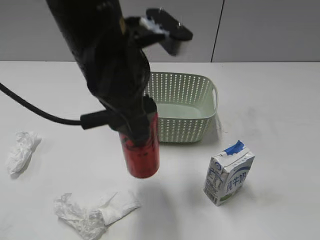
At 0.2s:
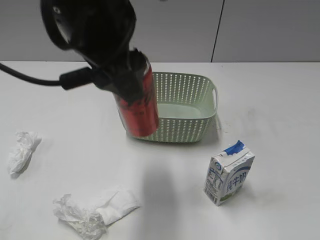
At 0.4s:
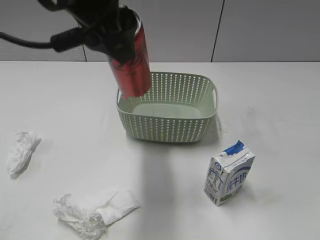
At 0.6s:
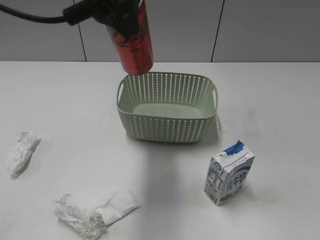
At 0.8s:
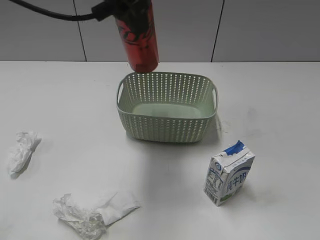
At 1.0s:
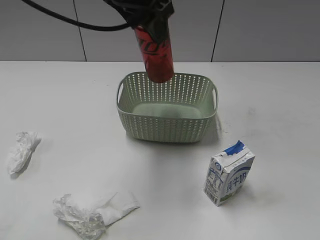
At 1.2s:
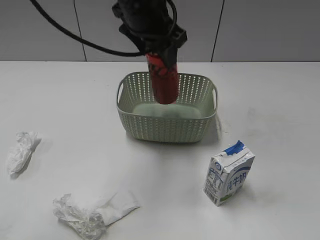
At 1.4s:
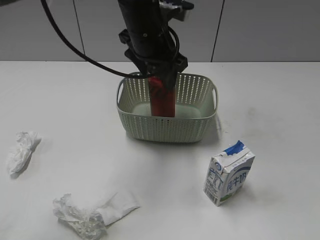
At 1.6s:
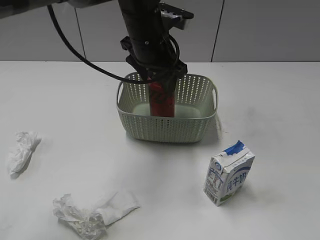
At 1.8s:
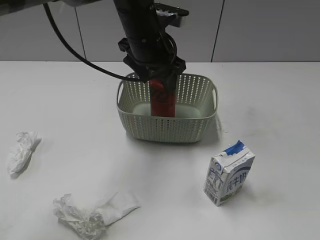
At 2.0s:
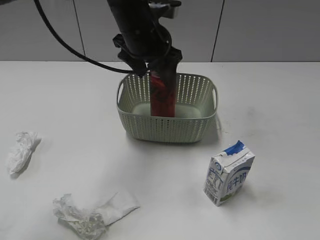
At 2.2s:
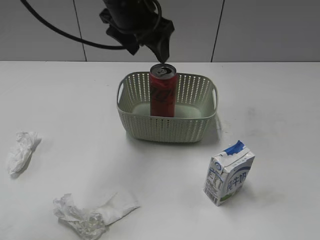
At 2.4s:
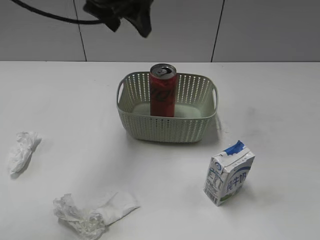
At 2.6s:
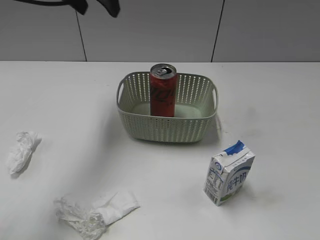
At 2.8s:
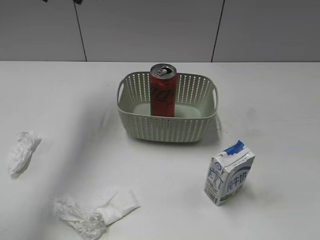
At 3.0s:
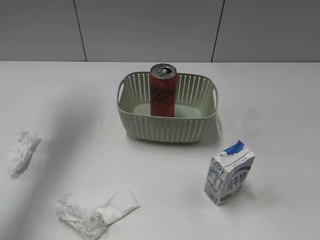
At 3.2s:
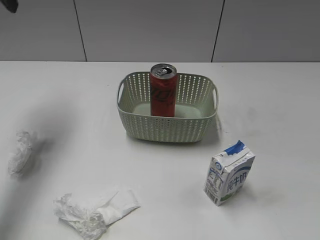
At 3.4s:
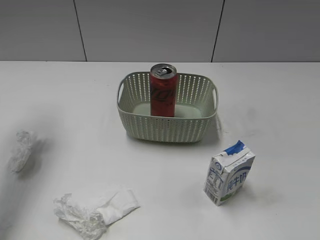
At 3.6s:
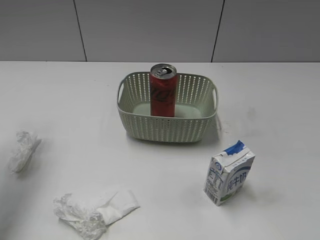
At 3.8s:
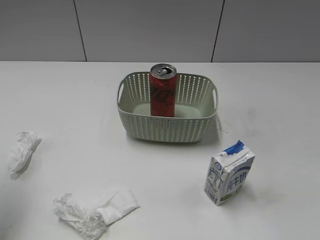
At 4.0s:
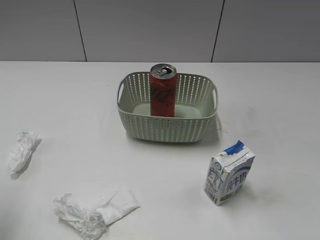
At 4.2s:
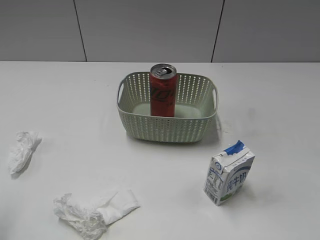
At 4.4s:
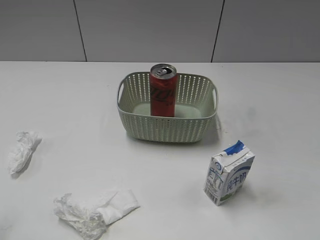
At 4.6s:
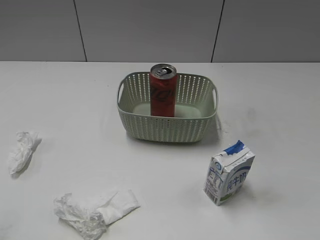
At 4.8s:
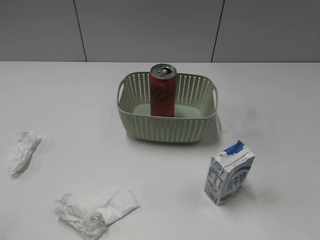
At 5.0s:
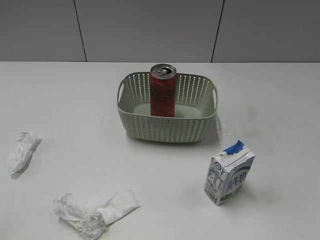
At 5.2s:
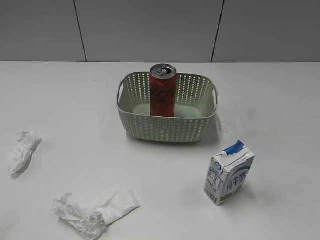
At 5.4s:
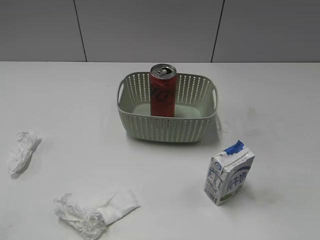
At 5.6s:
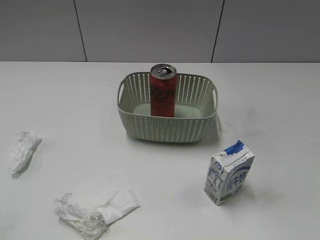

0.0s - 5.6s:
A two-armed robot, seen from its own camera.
Step, 0.0s - 2.2s: Place the cola can in the basket with left gripper.
0.0s - 1.4s: The left gripper moves forward, about 15 cm.
1.4s - 2.8s: The left gripper travels to the left and upward by some 20 cm, and opens up.
2.8s - 4.2s: The left gripper moves backward and to the left, approximately 30 cm.

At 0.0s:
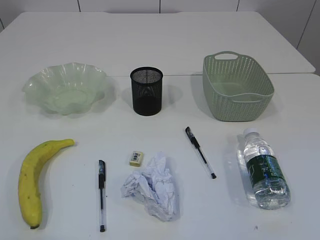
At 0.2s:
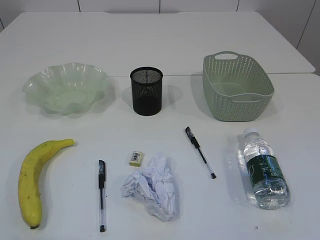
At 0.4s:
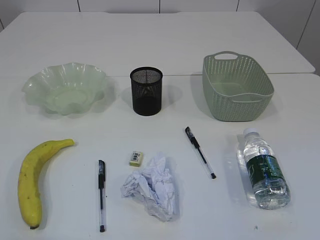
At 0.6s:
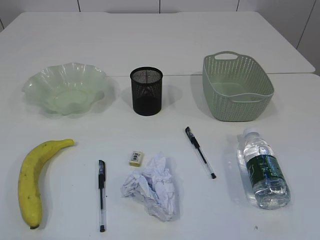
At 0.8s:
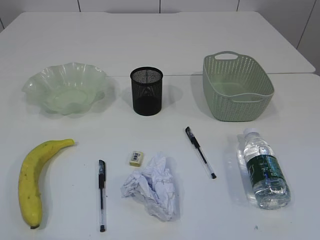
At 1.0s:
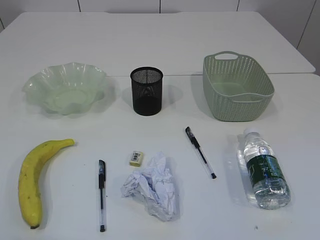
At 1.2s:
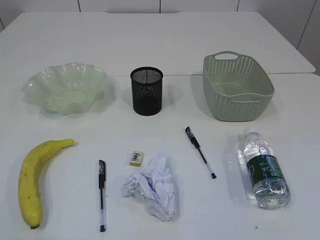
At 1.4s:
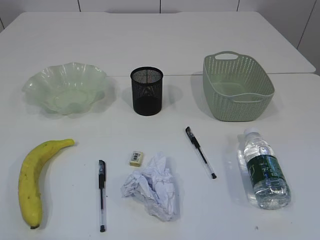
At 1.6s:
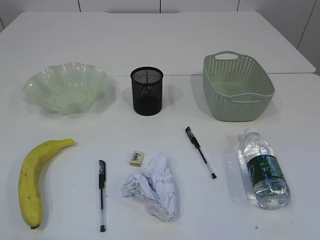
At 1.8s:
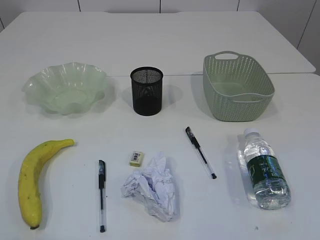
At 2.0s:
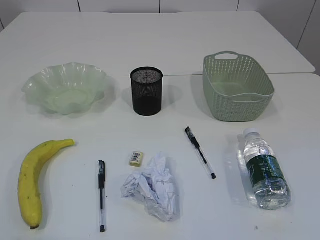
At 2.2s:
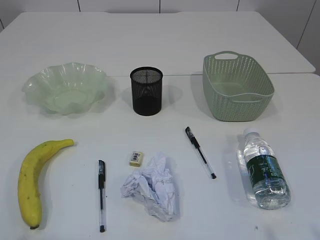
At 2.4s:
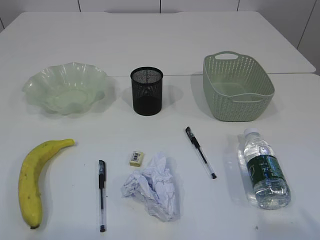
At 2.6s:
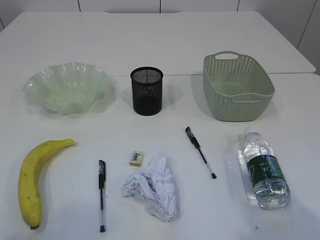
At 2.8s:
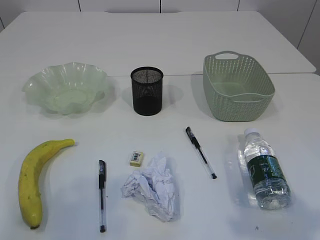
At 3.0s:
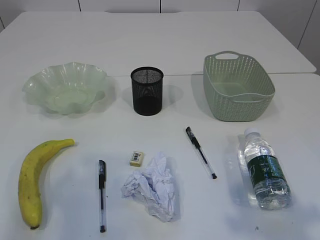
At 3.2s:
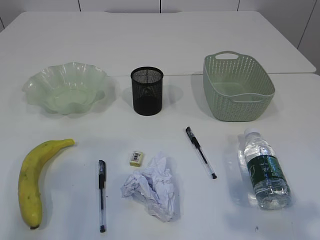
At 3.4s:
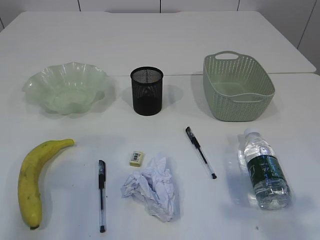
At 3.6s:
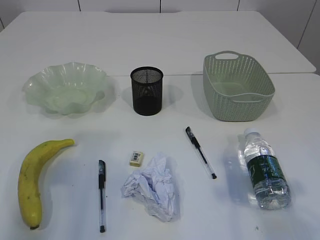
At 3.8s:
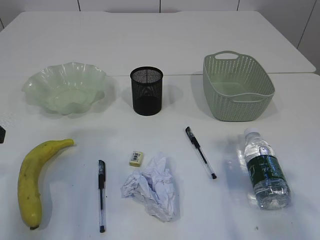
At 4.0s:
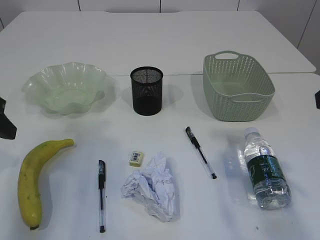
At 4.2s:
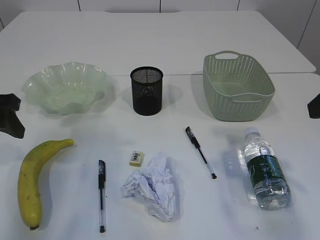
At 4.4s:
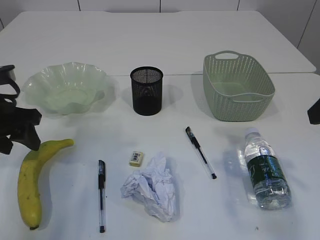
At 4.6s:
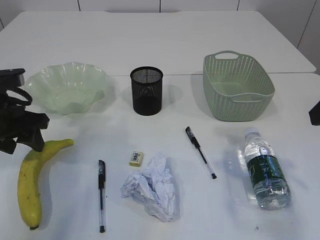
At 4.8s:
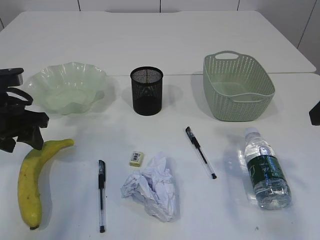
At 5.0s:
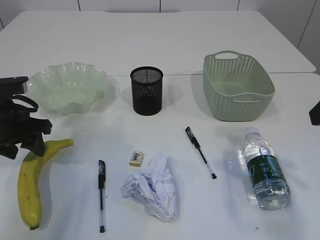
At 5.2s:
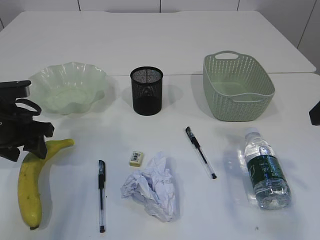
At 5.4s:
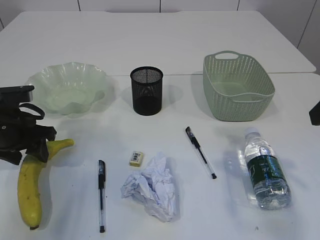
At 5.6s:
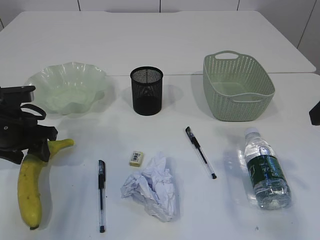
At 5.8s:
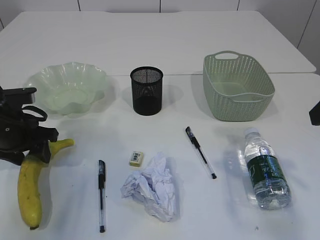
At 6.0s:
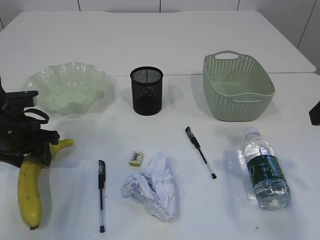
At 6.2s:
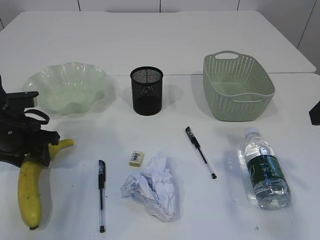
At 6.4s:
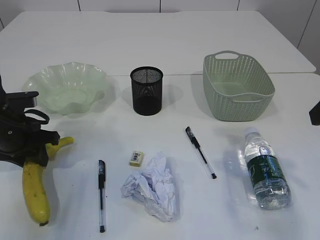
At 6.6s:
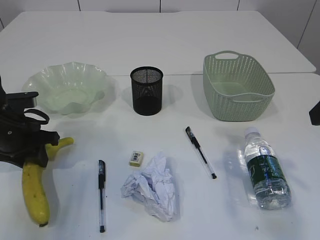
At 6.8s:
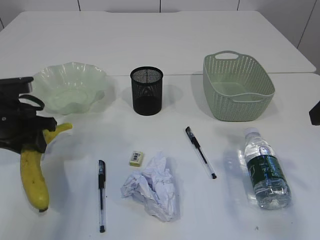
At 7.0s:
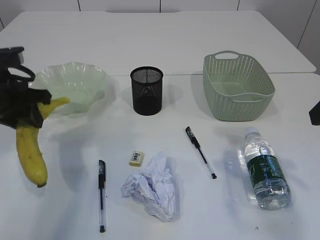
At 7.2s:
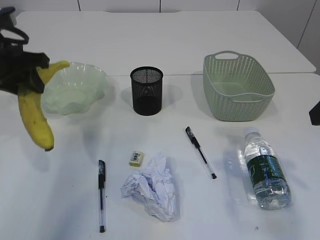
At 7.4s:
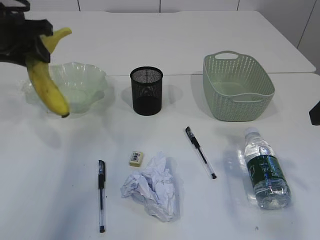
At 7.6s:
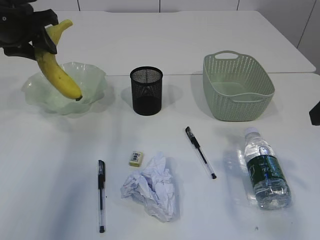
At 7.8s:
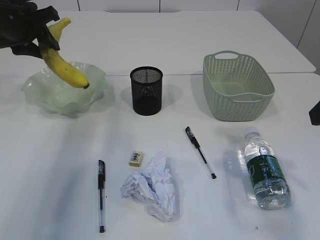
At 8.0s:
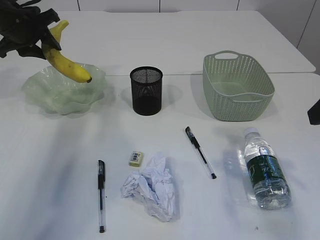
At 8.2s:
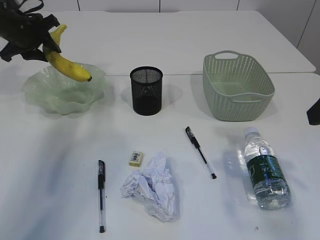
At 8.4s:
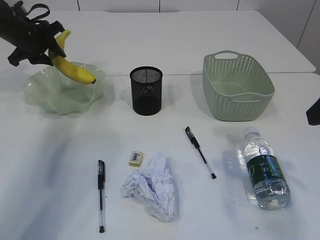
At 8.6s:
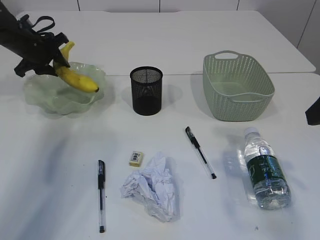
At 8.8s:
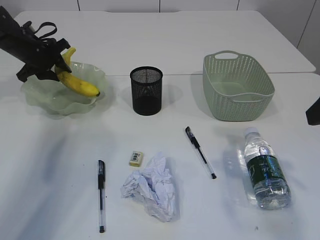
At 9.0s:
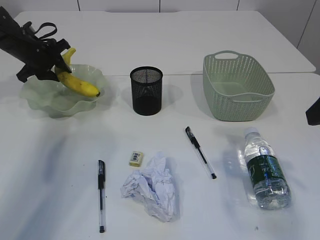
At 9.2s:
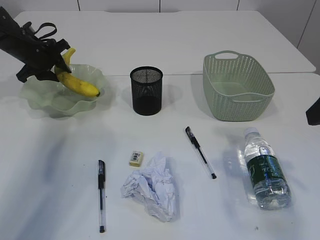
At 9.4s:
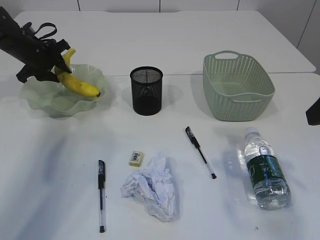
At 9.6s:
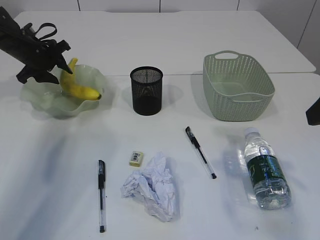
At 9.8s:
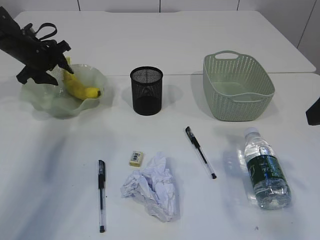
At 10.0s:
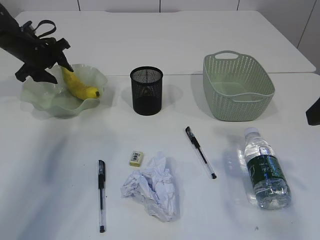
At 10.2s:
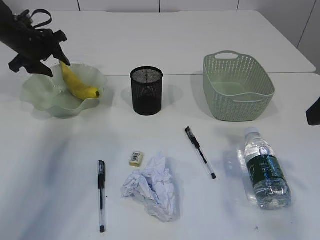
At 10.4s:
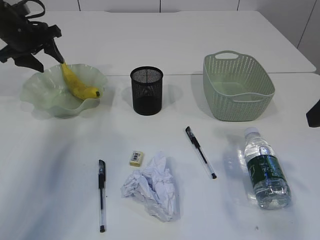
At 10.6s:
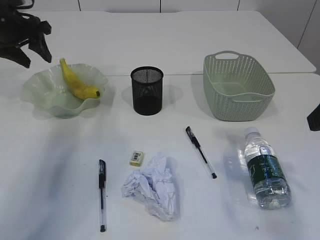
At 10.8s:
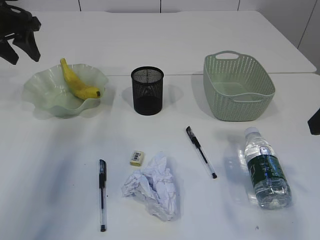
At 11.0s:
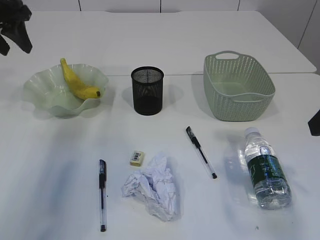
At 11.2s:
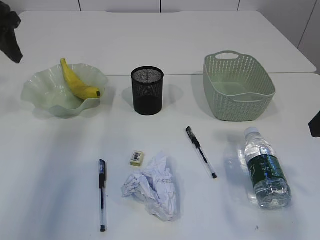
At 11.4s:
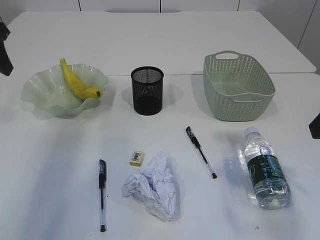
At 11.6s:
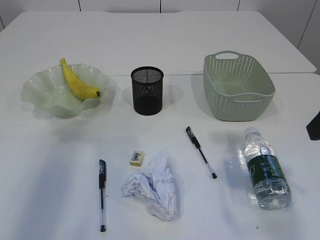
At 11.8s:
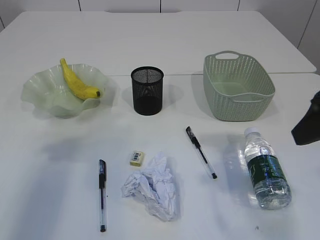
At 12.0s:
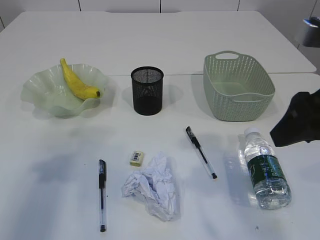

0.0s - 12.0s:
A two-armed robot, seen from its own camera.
Step, 7.2s - 10.4s: Place the banana in the plate.
1.6s - 3.0s: Both grippers move forward and upward, about 10 cm.
3.0s - 4.4s: The left gripper goes roughly 25 cm forward and downward, while the right gripper moves forward, about 15 cm.
4.4s - 6.0s: The left gripper heads downward, covering about 5 cm.
6.0s - 7.6s: The left gripper is displaced upward and forward by about 15 cm.
7.6s - 9.0s: The left gripper moves forward and downward, approximately 20 cm.
9.0s - 10.4s: The left gripper goes some 5 cm upward.
10.4s - 12.0s: The right gripper moves to the left, some 5 cm. The left gripper heads backward, covering approximately 30 cm.

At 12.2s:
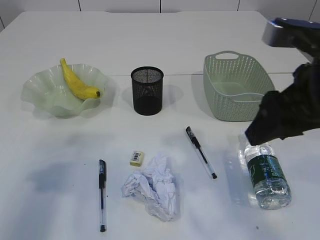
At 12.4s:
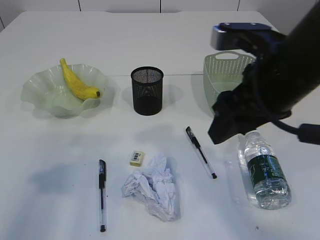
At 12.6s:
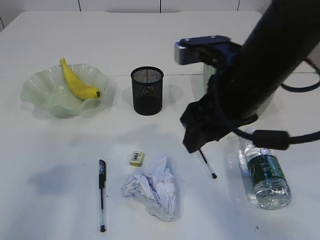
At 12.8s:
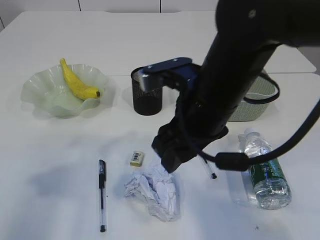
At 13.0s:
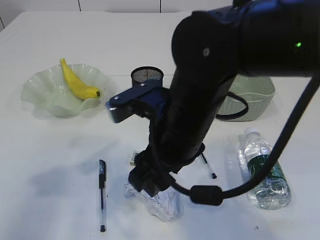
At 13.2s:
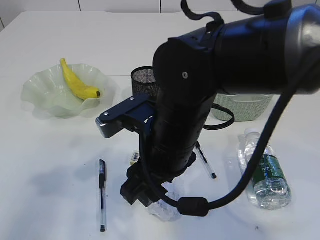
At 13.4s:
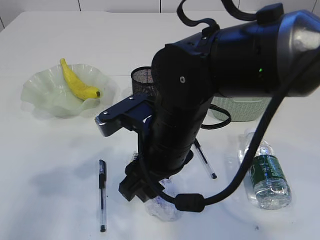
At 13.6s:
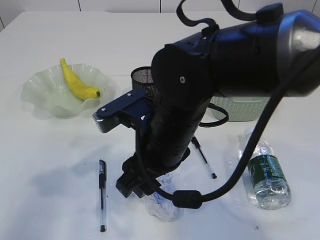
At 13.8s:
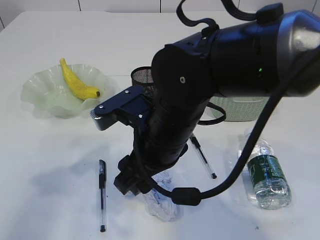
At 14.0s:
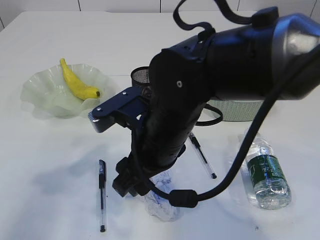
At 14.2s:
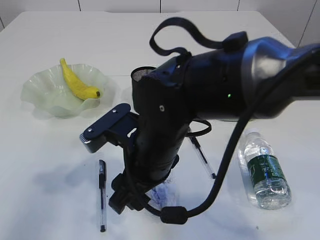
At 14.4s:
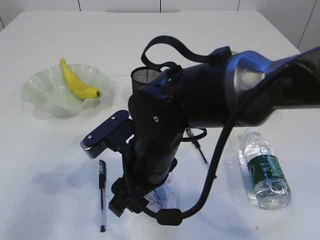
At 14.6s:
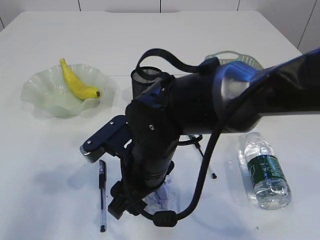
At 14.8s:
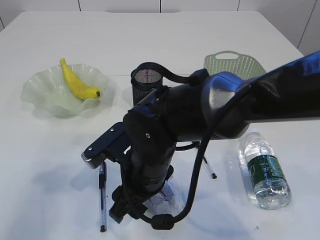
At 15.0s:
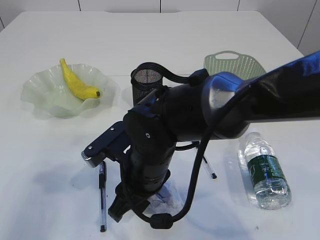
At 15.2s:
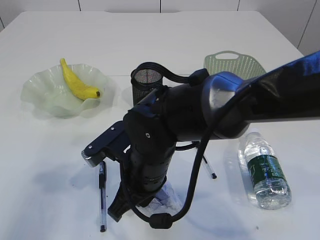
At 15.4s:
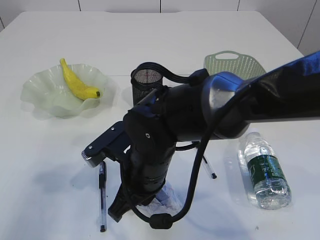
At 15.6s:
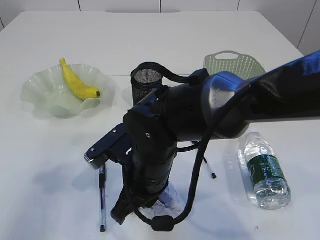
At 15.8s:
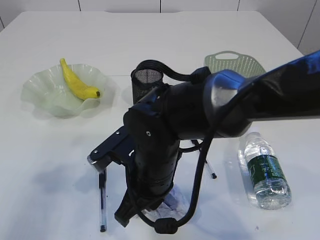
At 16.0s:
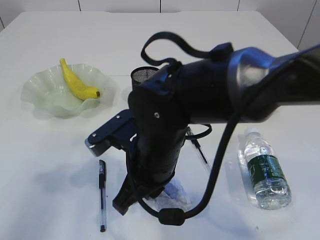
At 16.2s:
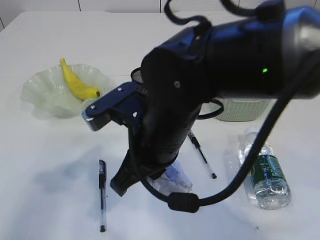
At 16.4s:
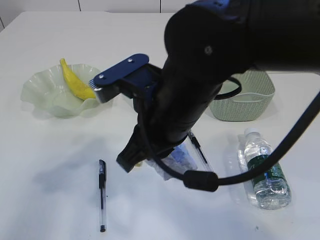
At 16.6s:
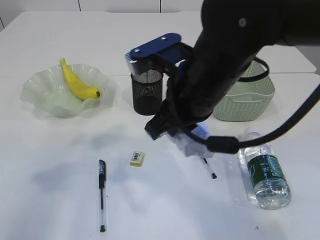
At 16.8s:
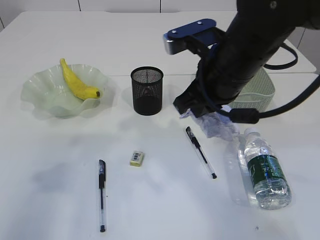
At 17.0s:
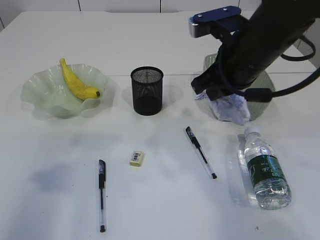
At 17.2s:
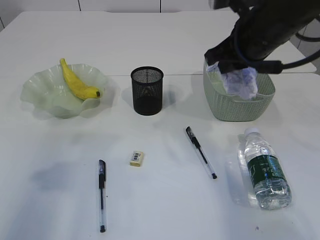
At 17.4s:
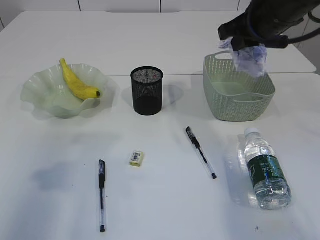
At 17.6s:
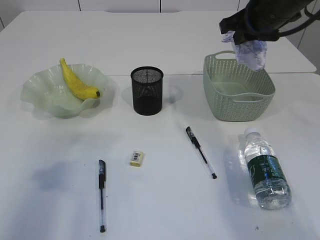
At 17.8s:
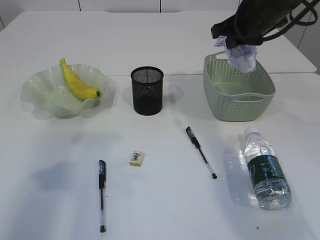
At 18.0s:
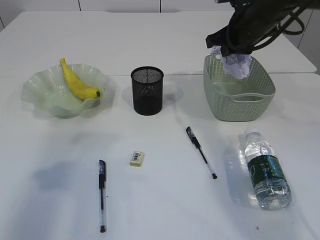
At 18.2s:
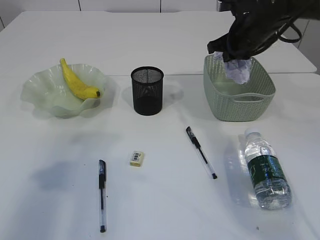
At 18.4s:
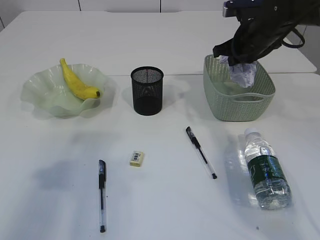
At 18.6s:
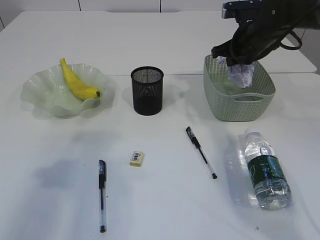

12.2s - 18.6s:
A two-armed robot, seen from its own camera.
Step, 12.2s - 16.2s: Pick up the waste paper.
12.2s - 13.8s: The right gripper travels to the left and downward by roughly 20 cm.
13.8s - 15.4s: The right gripper moves downward, some 5 cm, and closes up.
15.4s - 17.0s: The right gripper travels to the right, upward and forward by about 20 cm.
17.0s - 18.6s: The right gripper shifts approximately 15 cm forward and to the right.
